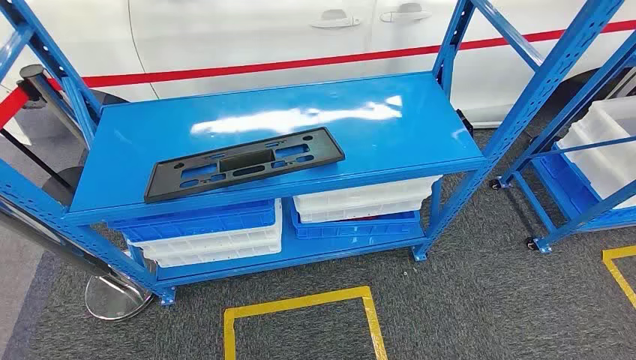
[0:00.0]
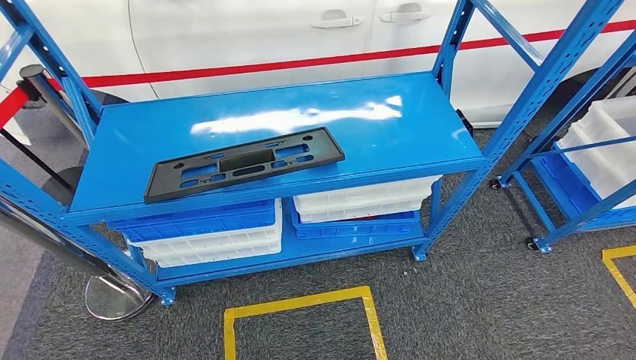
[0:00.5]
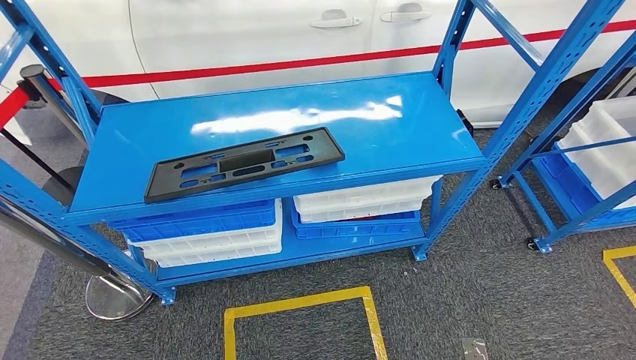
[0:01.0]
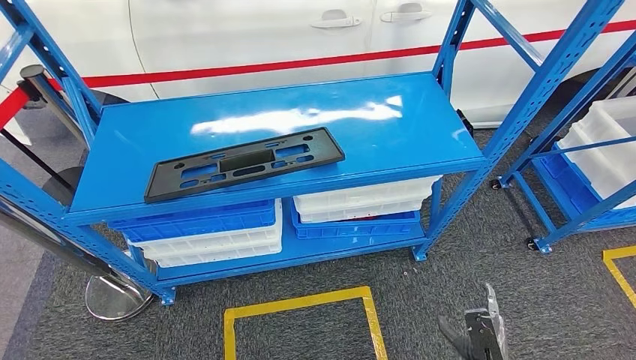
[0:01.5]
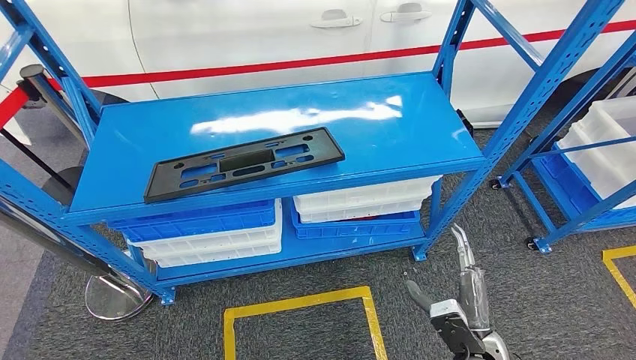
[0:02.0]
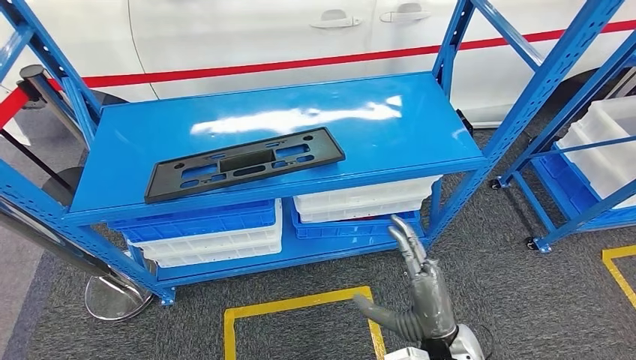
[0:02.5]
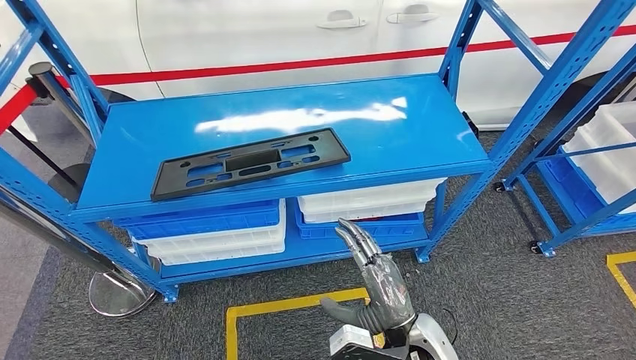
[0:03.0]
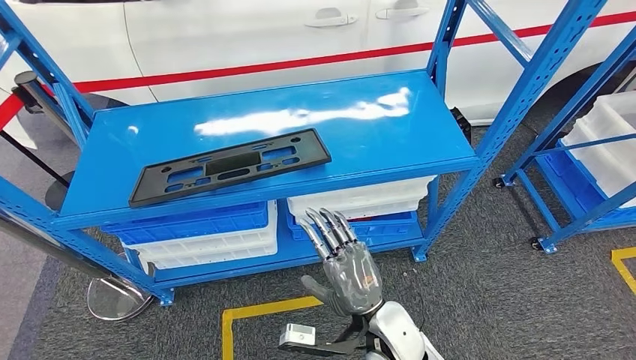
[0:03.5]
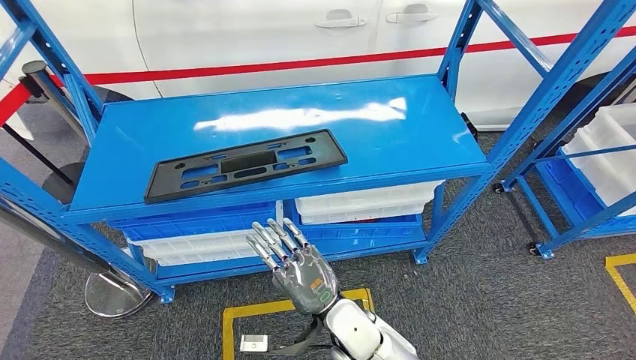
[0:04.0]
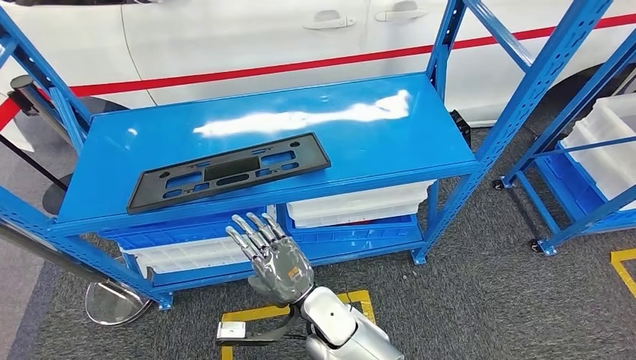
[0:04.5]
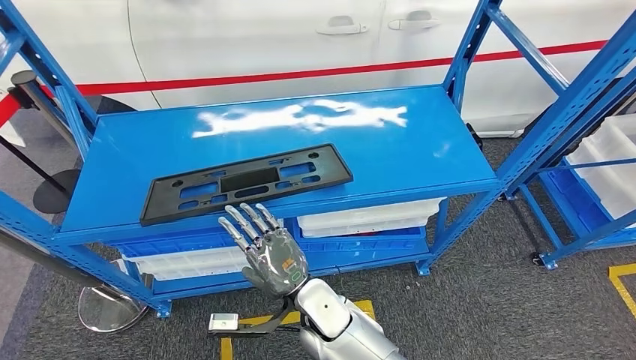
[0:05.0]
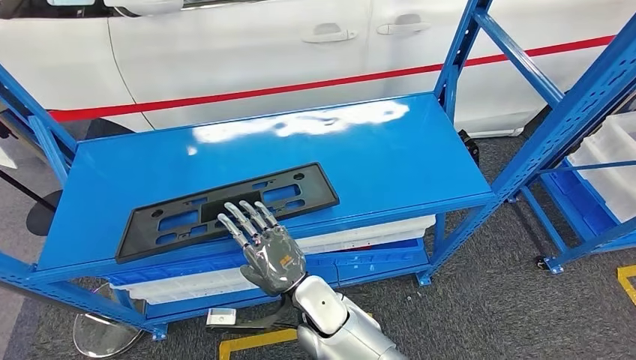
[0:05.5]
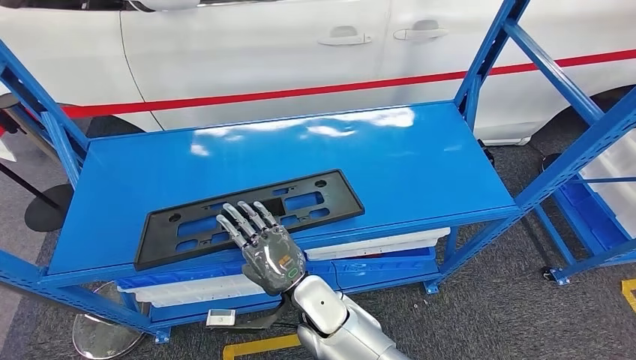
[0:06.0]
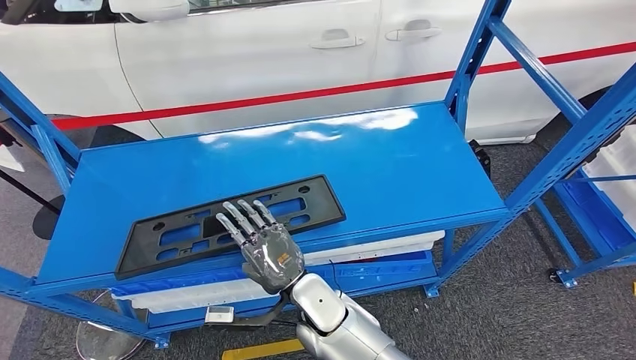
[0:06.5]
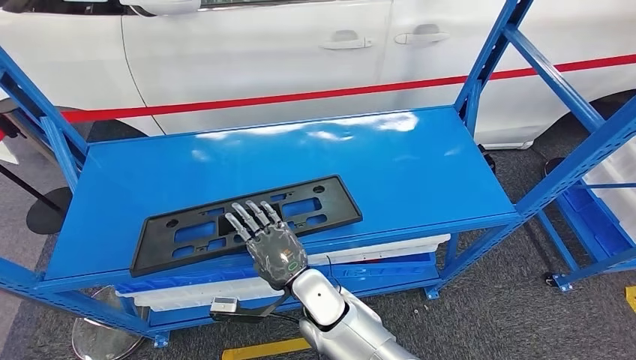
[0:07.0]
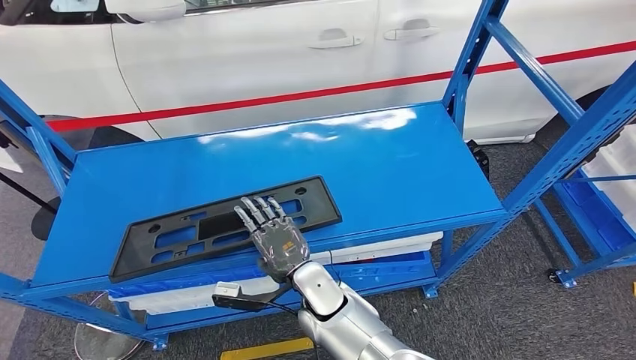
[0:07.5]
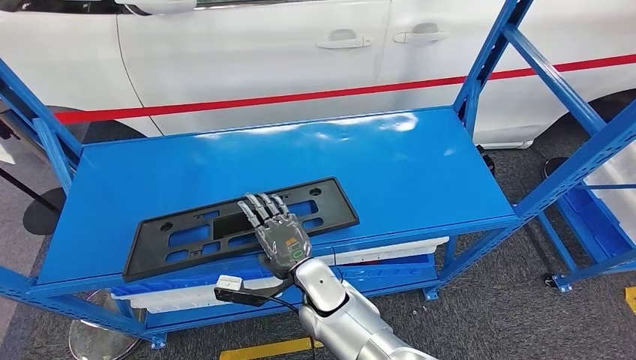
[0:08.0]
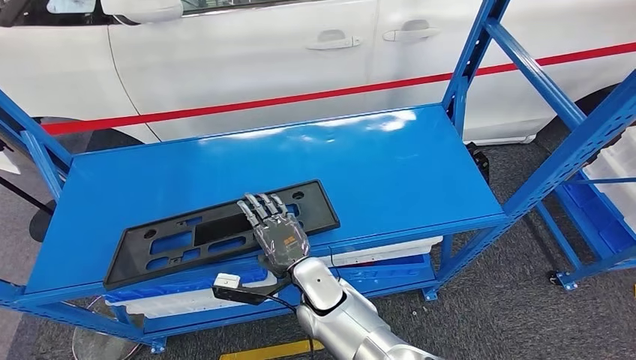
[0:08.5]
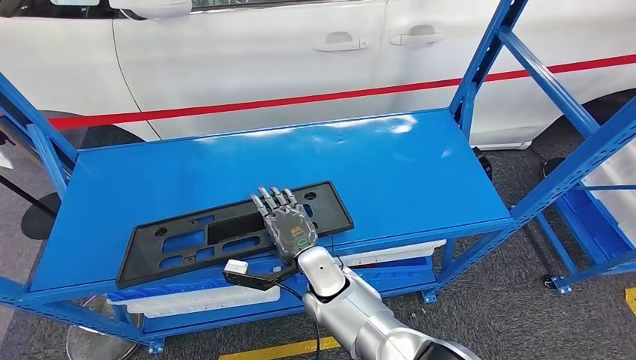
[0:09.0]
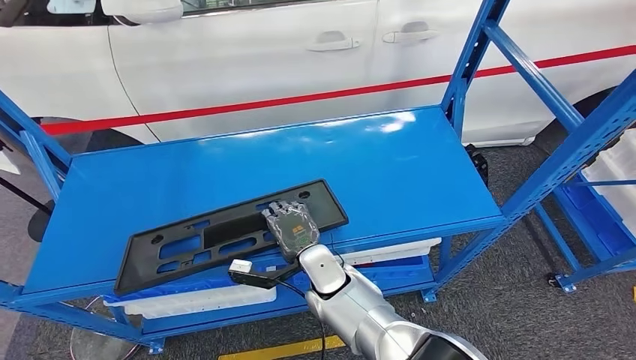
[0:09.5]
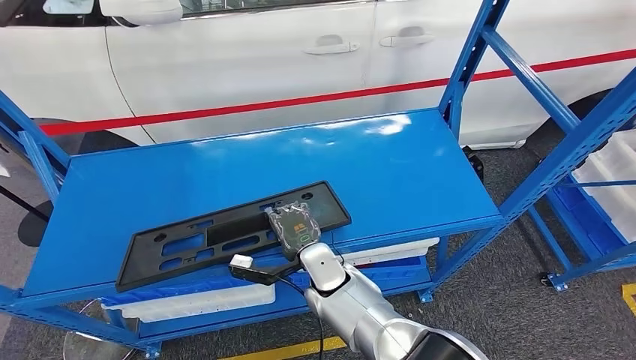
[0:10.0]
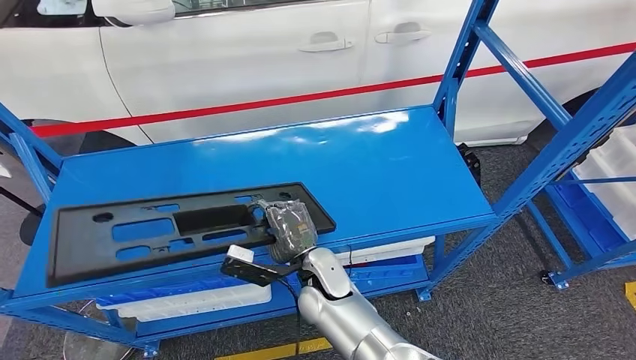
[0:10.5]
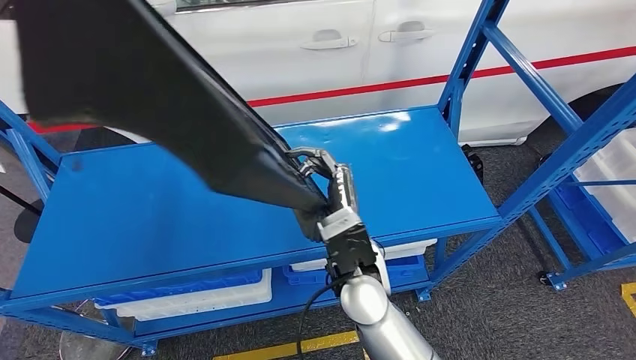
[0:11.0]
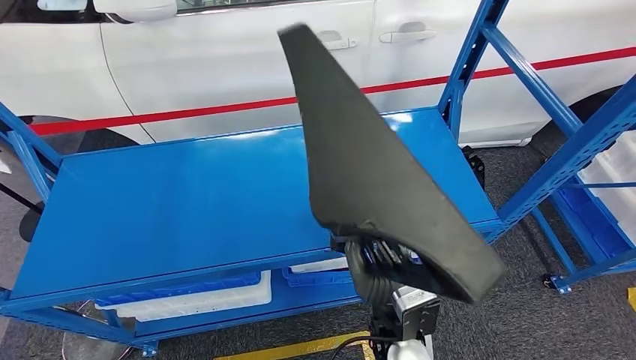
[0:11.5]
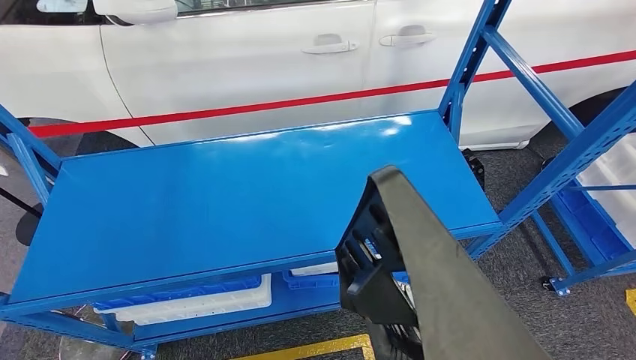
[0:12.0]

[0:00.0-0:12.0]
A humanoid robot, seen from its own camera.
Step, 0:00.0 to 0:11.5: Pick up the large material from the shelf.

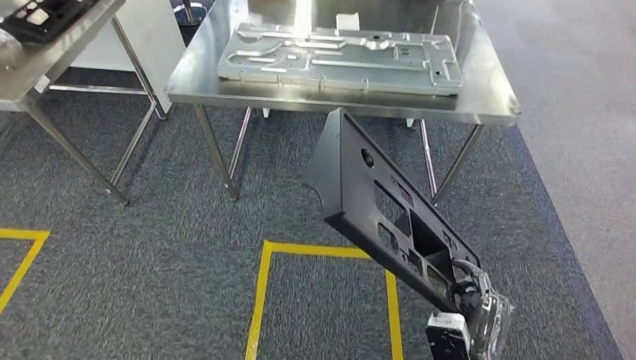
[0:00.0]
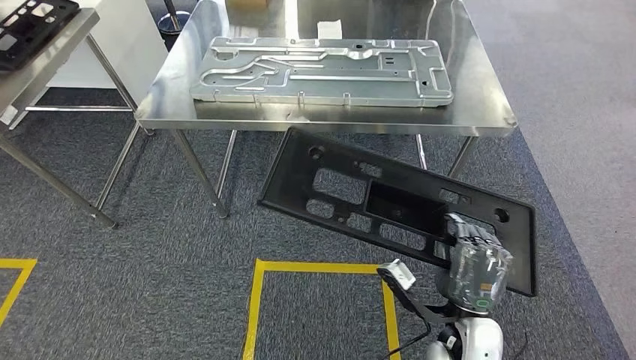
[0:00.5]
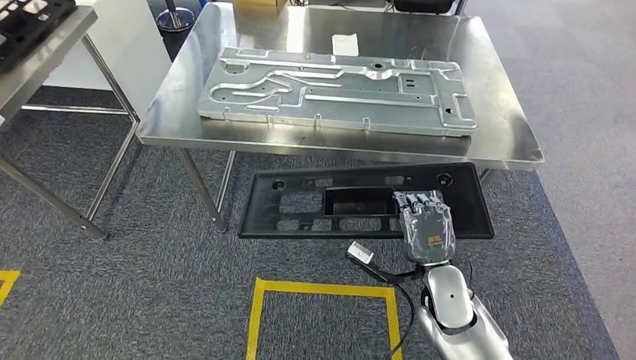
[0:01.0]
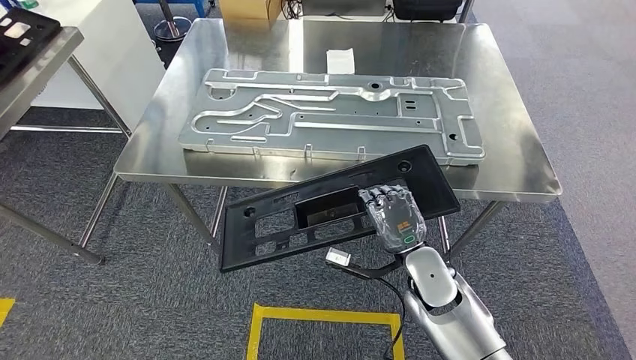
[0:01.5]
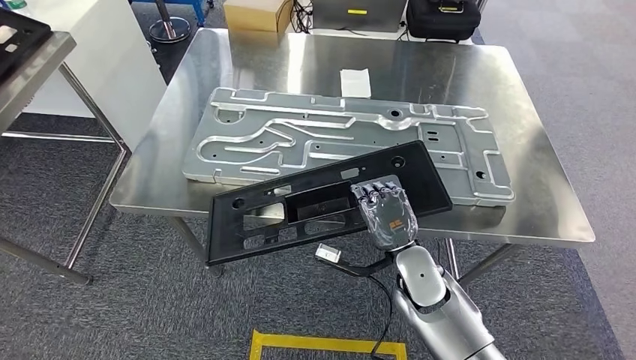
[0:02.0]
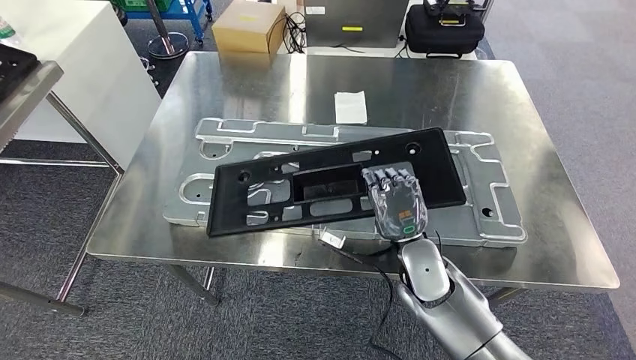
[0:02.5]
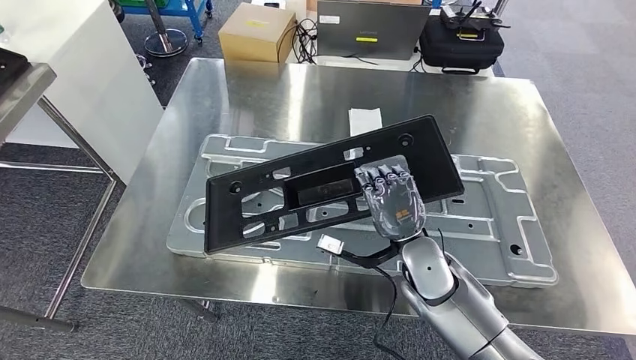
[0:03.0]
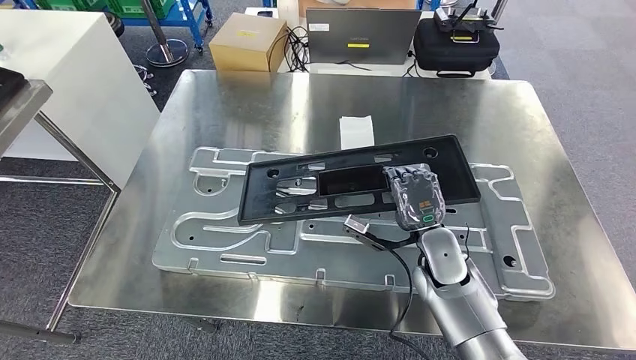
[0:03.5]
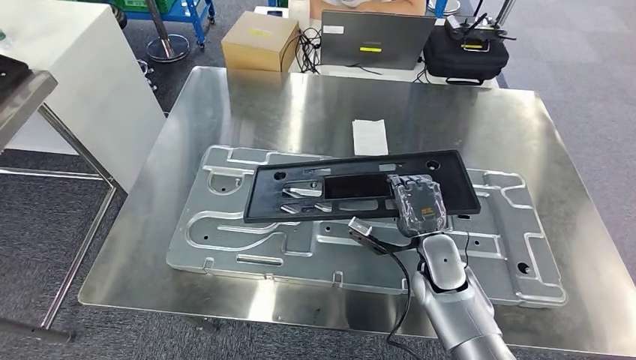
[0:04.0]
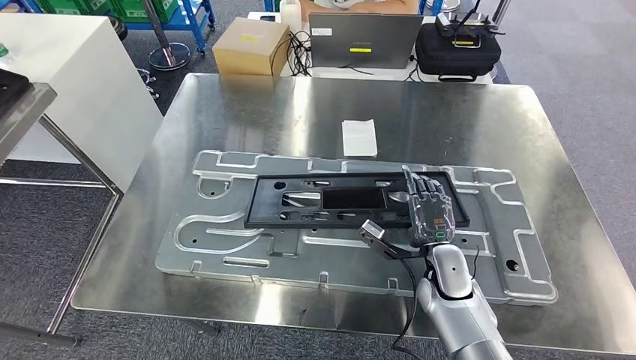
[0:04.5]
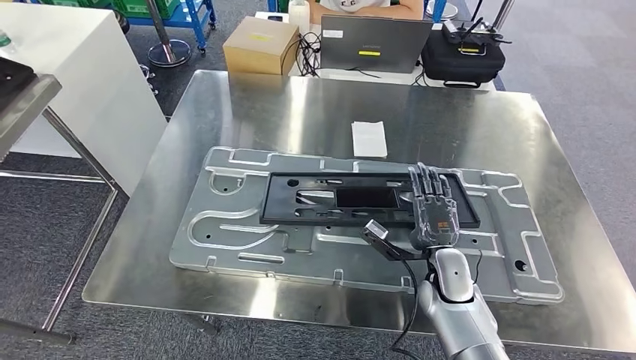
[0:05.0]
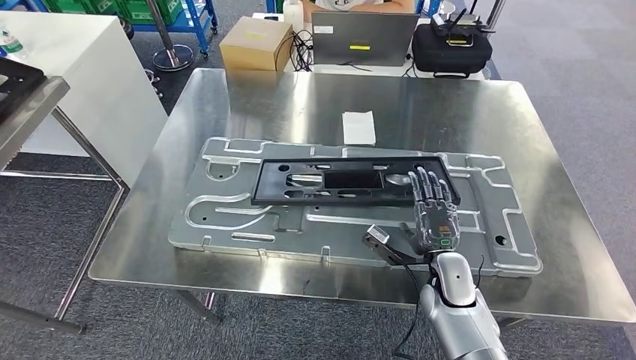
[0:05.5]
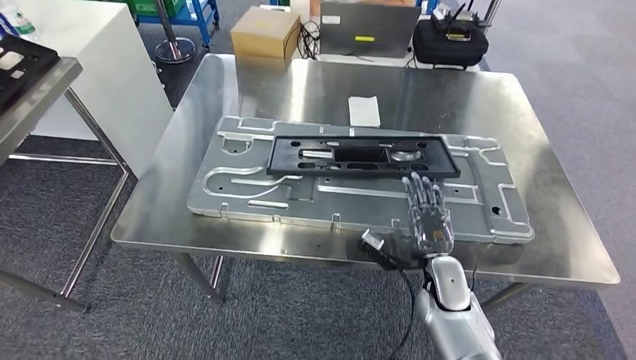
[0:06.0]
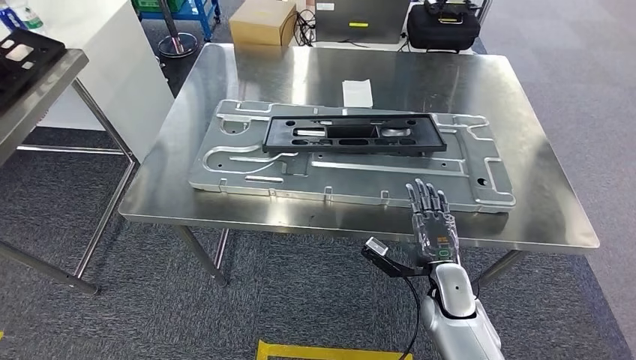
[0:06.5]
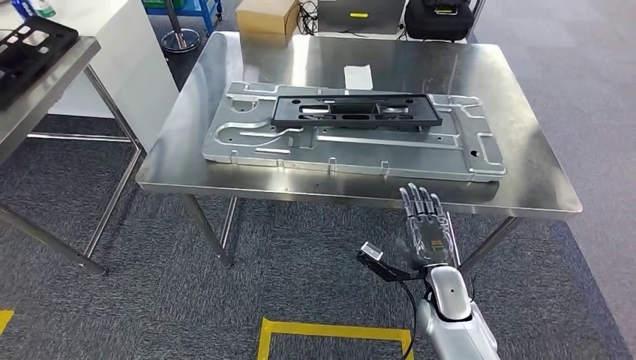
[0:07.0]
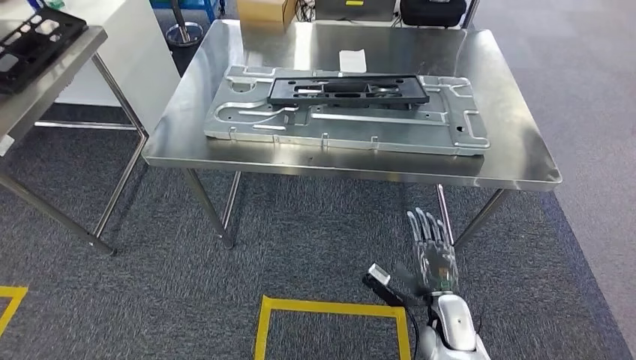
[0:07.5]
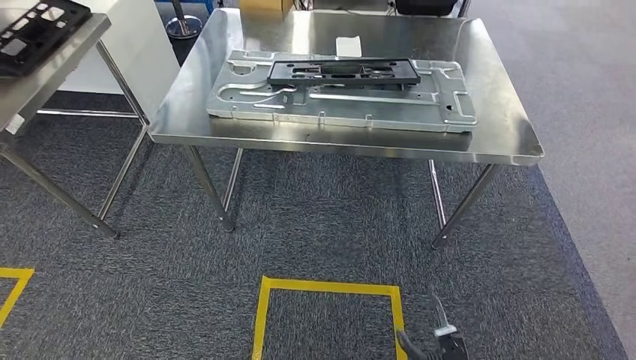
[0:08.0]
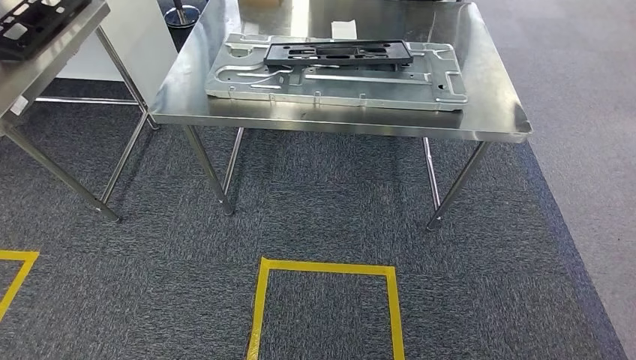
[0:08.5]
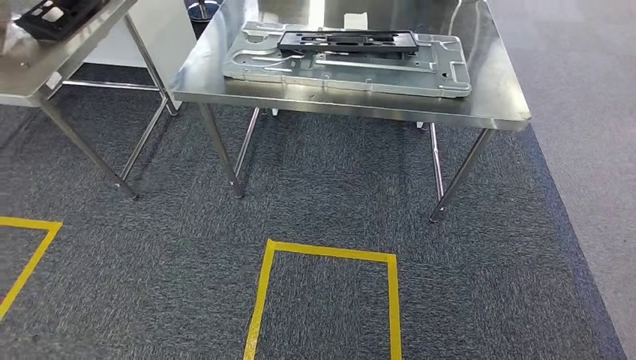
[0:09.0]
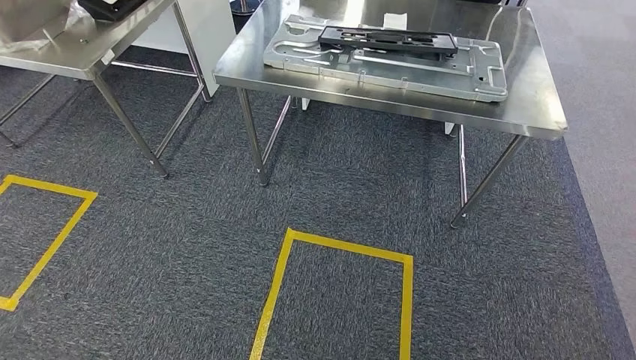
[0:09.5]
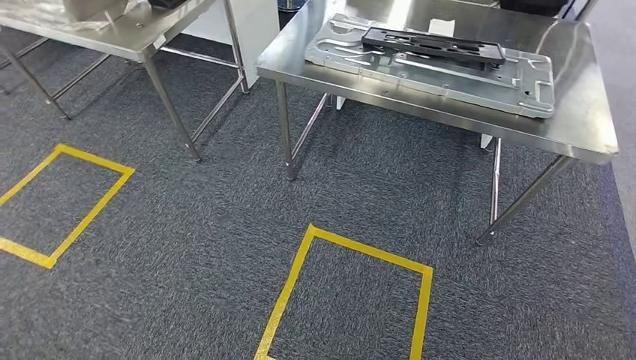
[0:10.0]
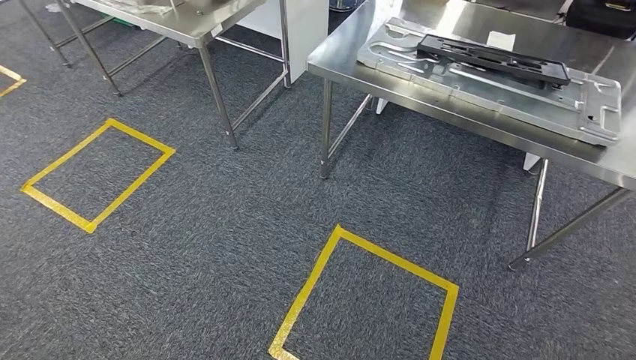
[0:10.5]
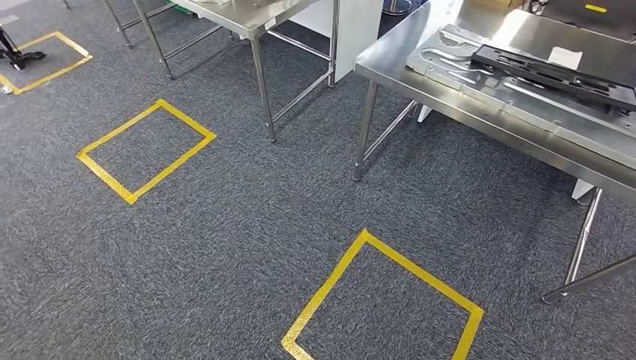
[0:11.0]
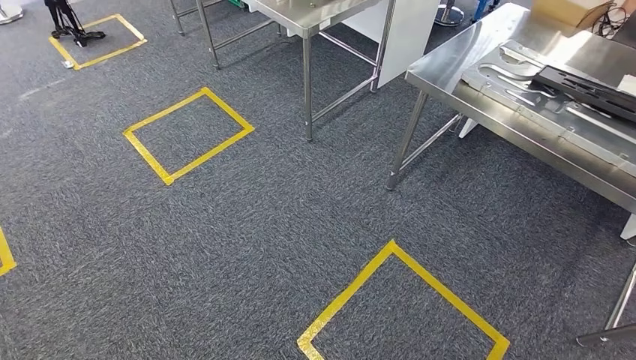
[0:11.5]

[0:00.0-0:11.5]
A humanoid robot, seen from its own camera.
Step, 0:00.0 to 0:02.0: Move the large material to the workbench.
Step, 0:02.5 to 0:08.0: Insert the large material into the corresponding slot on the workbench.
